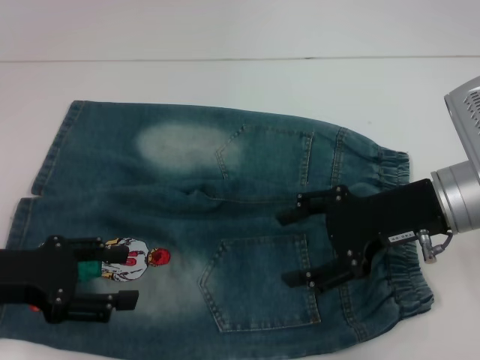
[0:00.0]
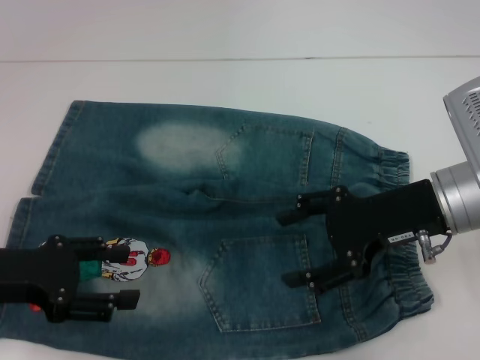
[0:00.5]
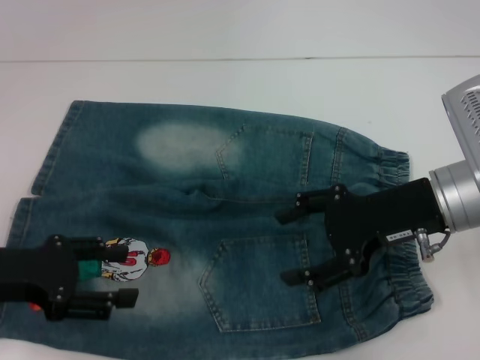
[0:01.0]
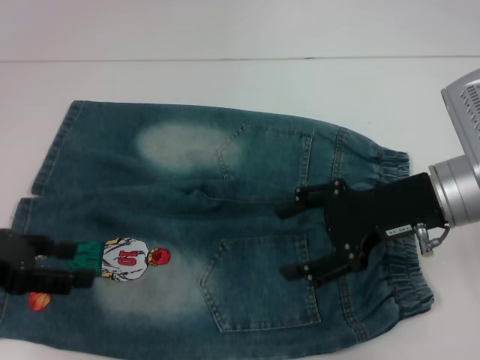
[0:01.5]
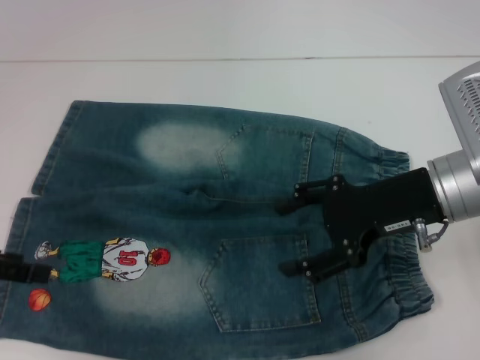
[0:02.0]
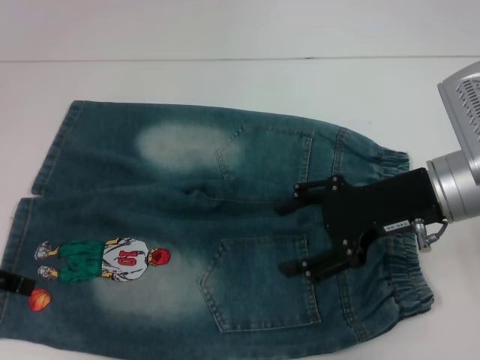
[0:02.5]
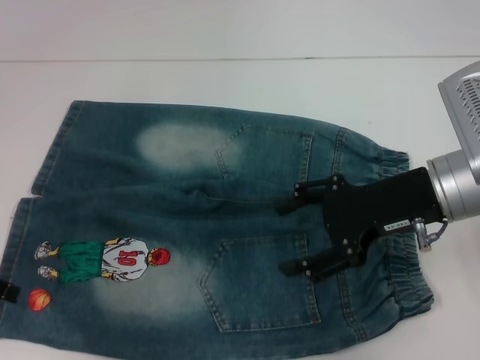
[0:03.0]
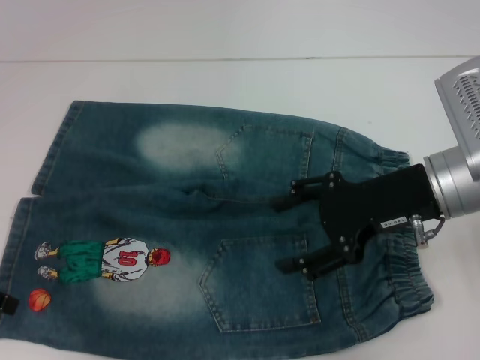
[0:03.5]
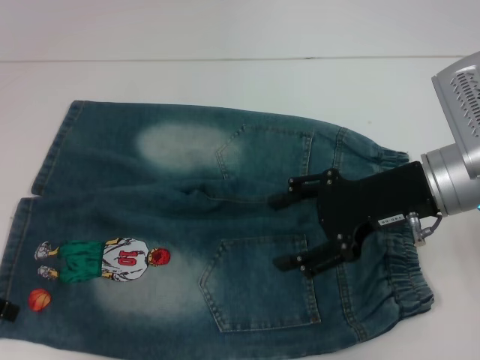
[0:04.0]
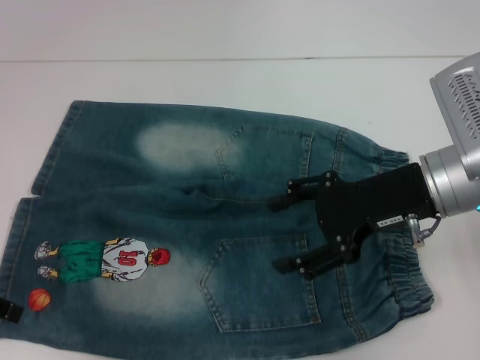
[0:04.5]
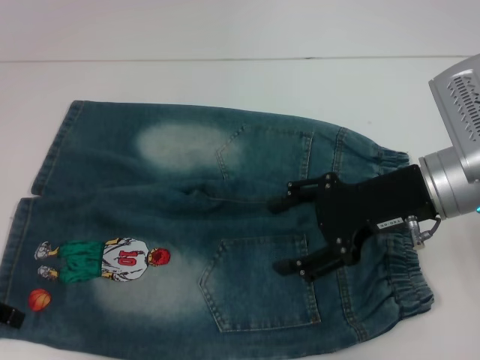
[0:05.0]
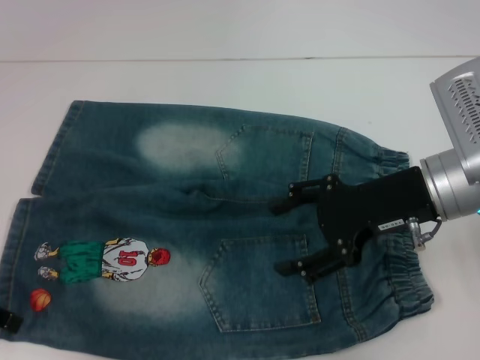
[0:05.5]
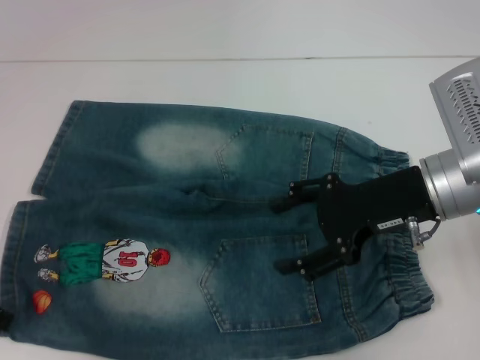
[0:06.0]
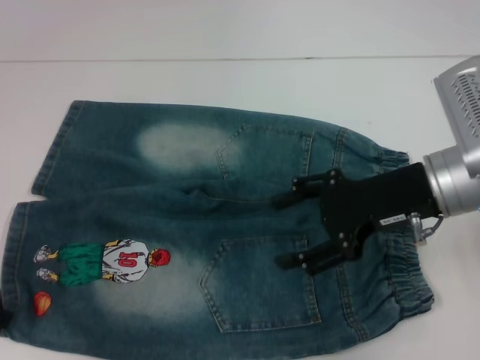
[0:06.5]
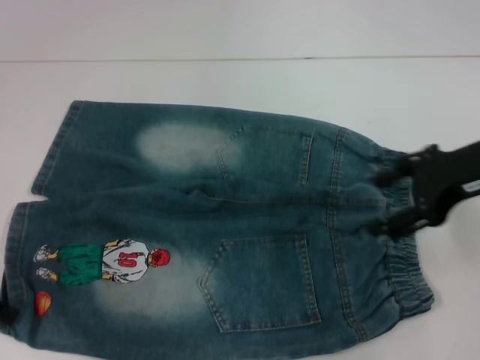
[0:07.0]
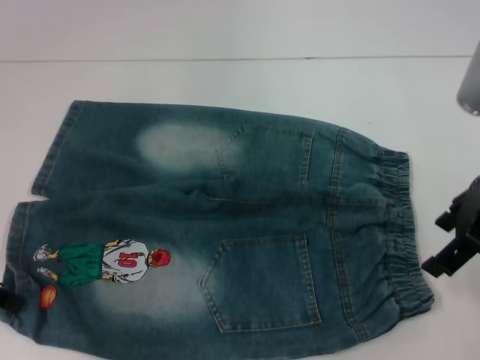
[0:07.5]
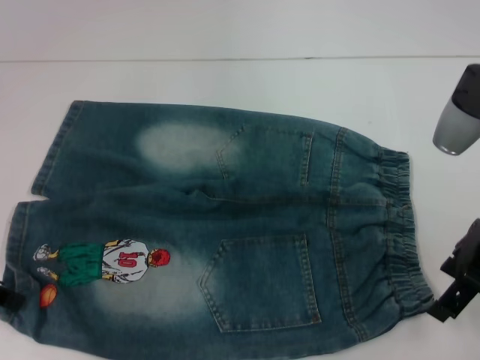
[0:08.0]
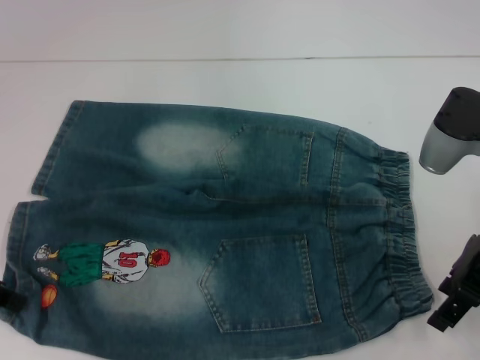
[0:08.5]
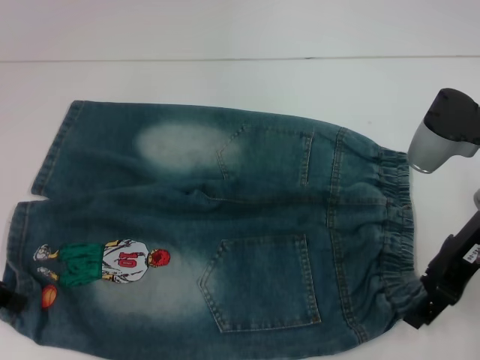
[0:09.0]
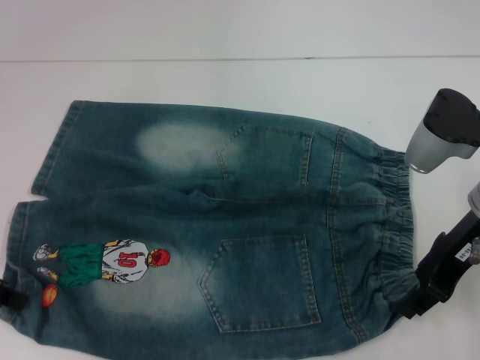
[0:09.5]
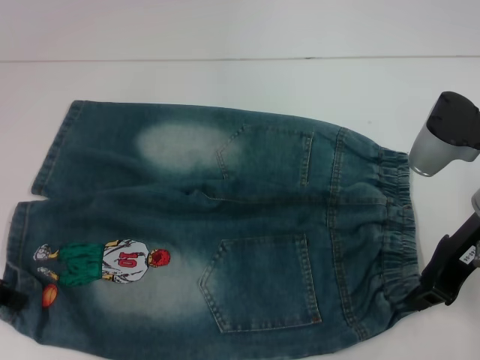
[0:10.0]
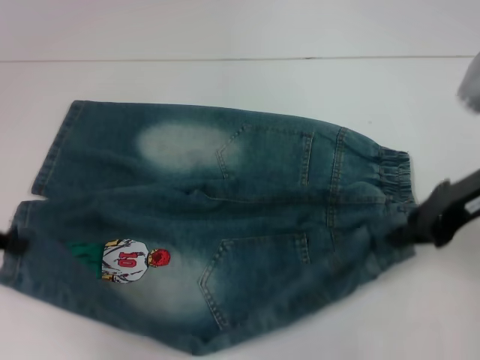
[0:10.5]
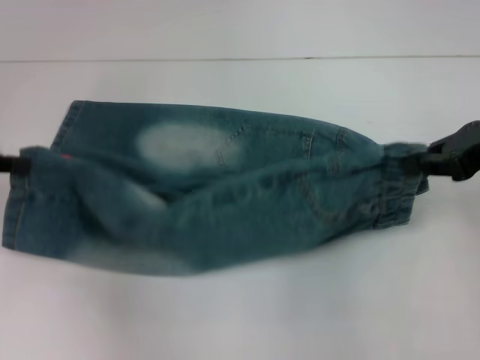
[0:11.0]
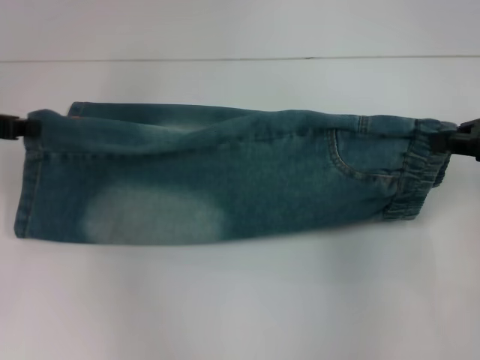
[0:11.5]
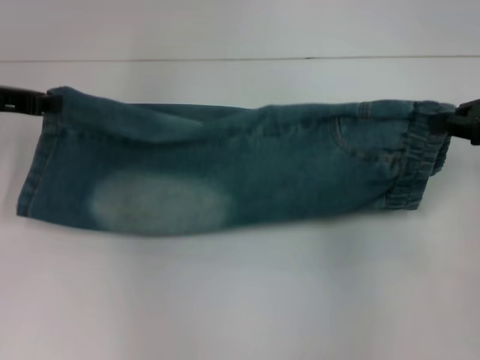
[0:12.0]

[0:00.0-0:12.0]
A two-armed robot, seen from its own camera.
Step, 0:00.0 to 0:06.5: Grab the lower left pant leg with your left hand.
Step, 0:07.0 to 0:09.5: Hold the lower right waistband with your right hand.
0:00.0 to 0:02.0: The left gripper shifts by about 5 cm.
0:02.0 to 0:04.0: There are only small adjustments of the grippers.
0:04.0 to 0:06.0: The left gripper closes its fingers.
0:06.0 to 0:08.0: The right gripper shifts by some 5 cm.
0:08.0 to 0:10.0: The right gripper closes its fingers.
0:10.0 to 0:12.0: The left gripper shifts some 10 cm forward. Meanwhile the right gripper heads to the right, covering roughly 10 cm.

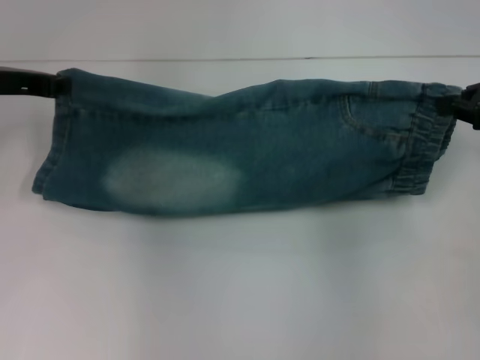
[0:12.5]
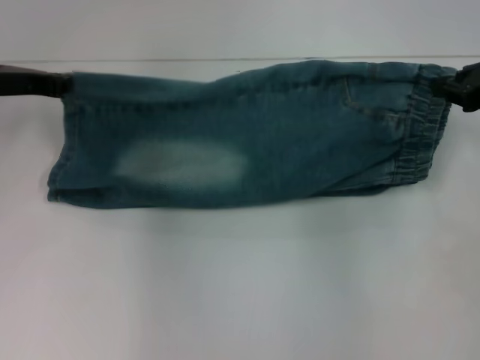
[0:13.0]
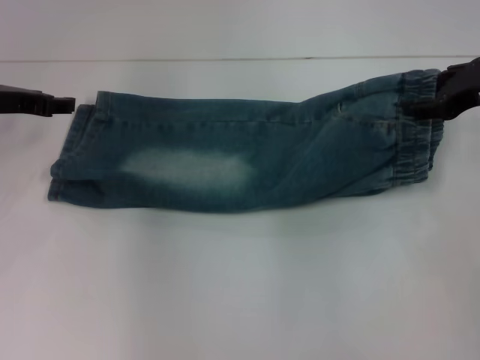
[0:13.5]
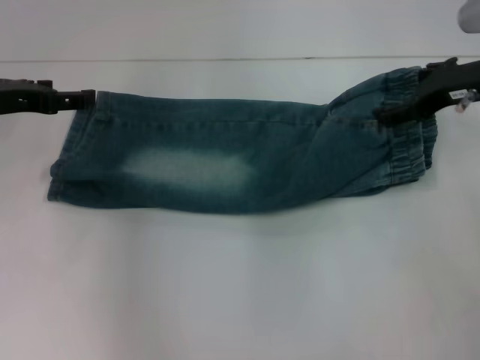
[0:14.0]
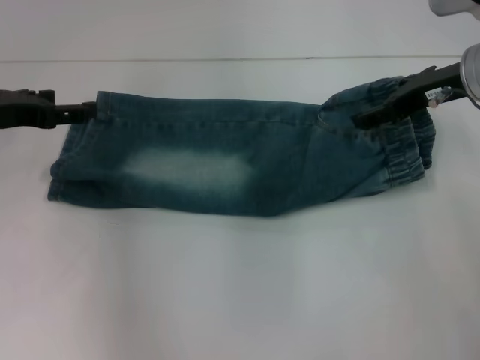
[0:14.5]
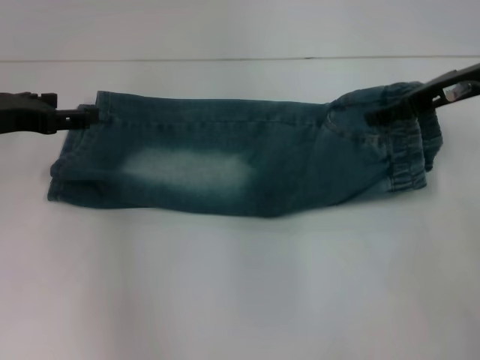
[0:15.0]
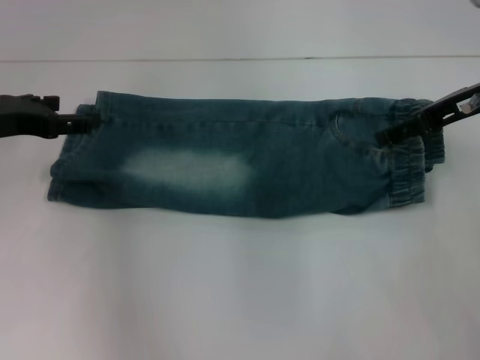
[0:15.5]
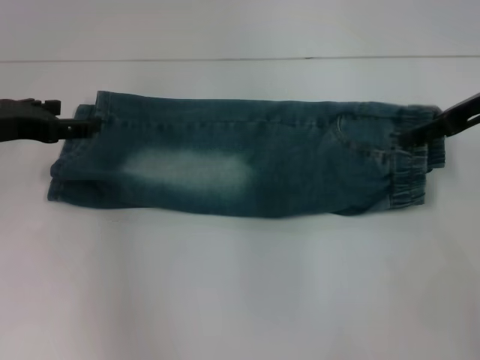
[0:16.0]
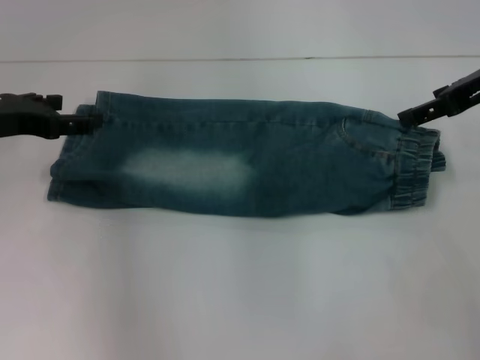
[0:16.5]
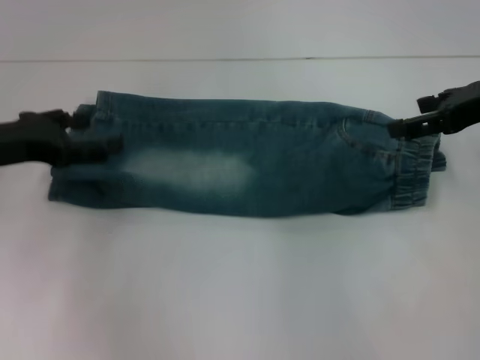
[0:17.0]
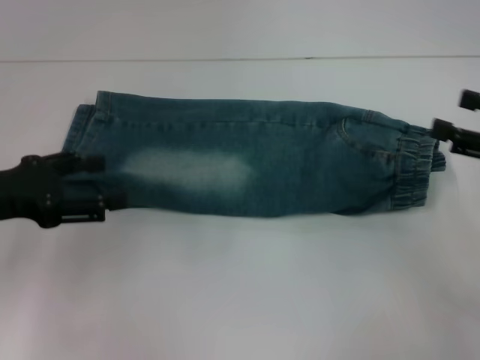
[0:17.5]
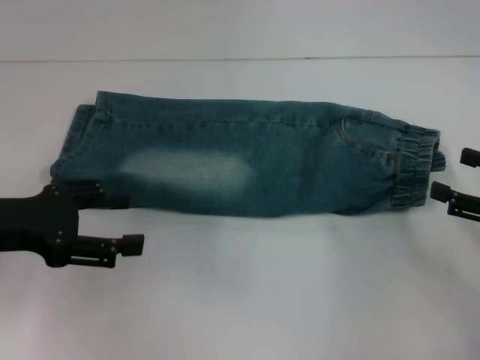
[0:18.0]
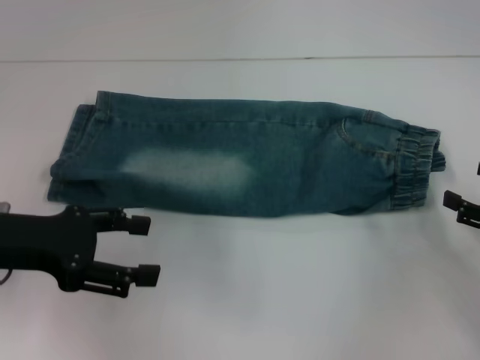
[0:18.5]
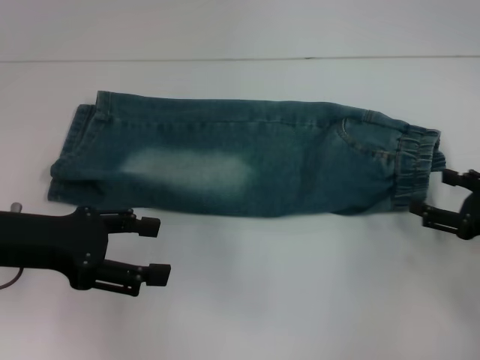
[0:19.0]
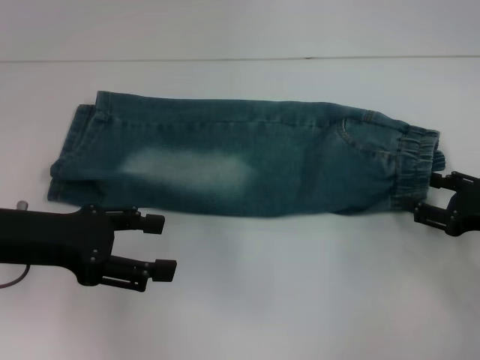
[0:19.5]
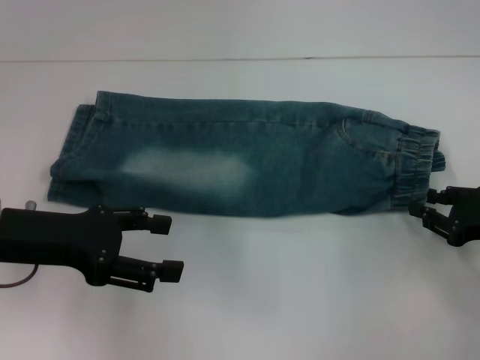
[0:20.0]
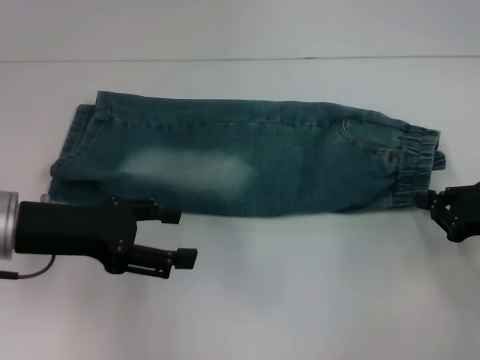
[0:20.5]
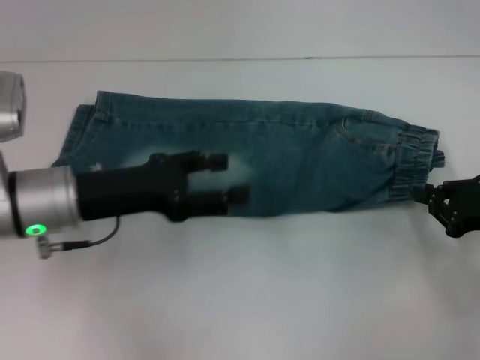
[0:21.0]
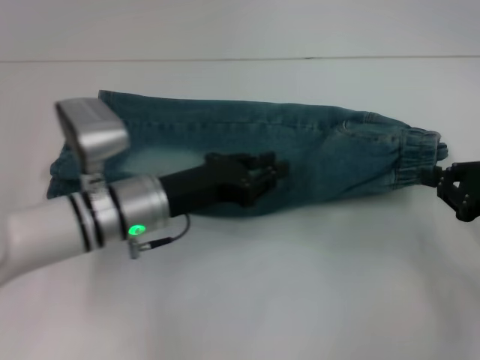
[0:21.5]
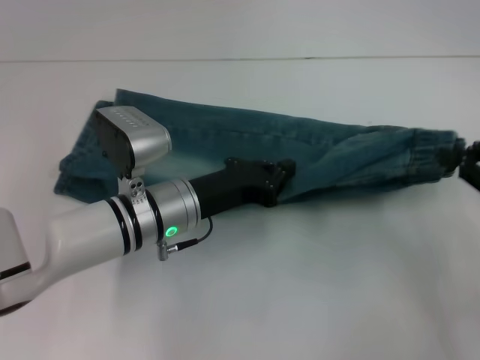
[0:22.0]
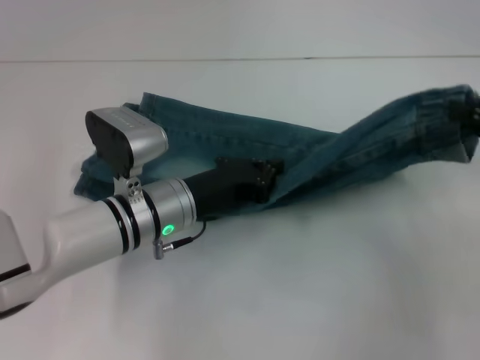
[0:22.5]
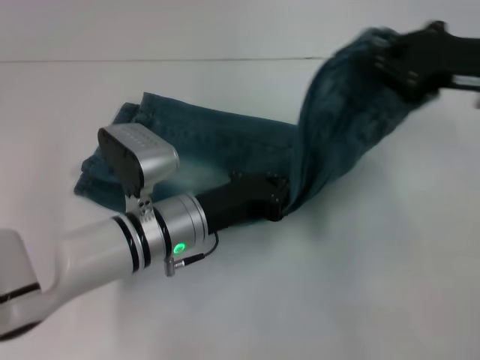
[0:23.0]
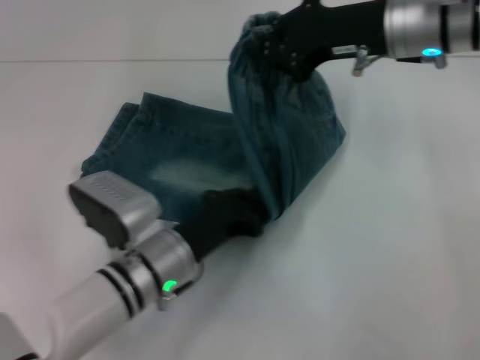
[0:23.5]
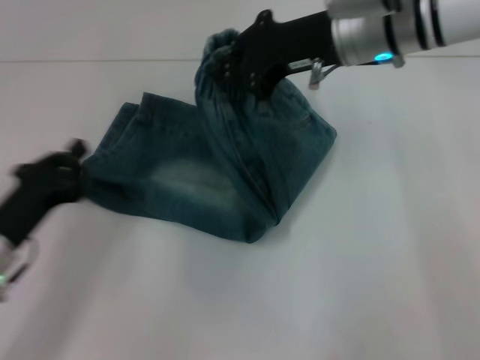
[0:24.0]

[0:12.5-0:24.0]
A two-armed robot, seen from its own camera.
Step, 0:13.5 to 0:16.0: Fold upward with your right hand.
Step, 0:16.5 to 0:20.5: Grab the waistband with your right hand.
Step, 0:21.0 to 0:23.0: Press the middle of the pants with your left hand.
0:12.5 to 0:14.5: The right gripper travels to the left by some 10 cm, and opens its fingers. Meanwhile the left gripper opens its fingers.
0:14.5 to 0:16.5: The right gripper shifts by roughly 5 cm.
0:16.5 to 0:18.5: The right gripper shifts roughly 25 cm downward, backward and to the right. Meanwhile the left gripper shifts roughly 10 cm backward.
0:18.5 to 0:20.0: The right gripper closes up.
0:20.0 to 0:22.0: The right gripper heads upward, covering some 10 cm, and closes, while the left gripper shifts roughly 20 cm to the right and downward, and closes.
0:22.0 to 0:24.0: The left gripper travels to the left and backward by some 15 cm, while the right gripper heads to the left and forward, covering roughly 25 cm.

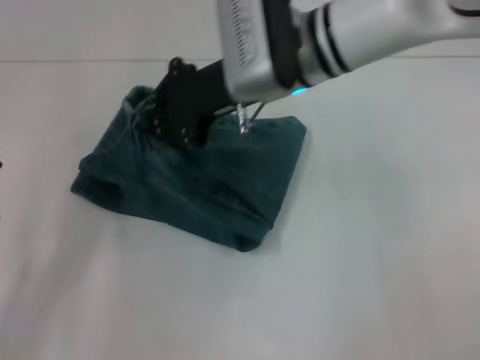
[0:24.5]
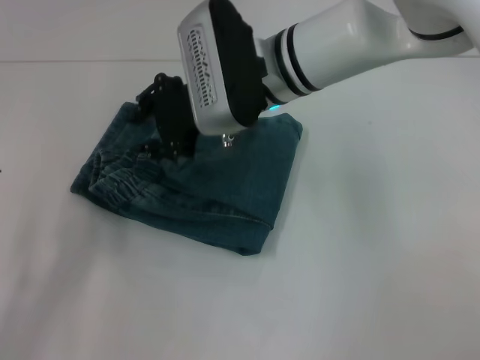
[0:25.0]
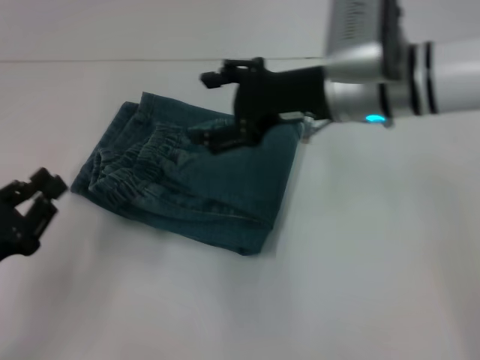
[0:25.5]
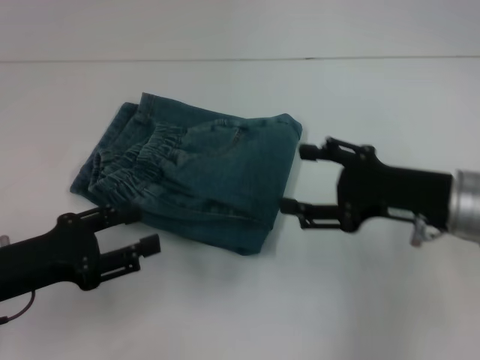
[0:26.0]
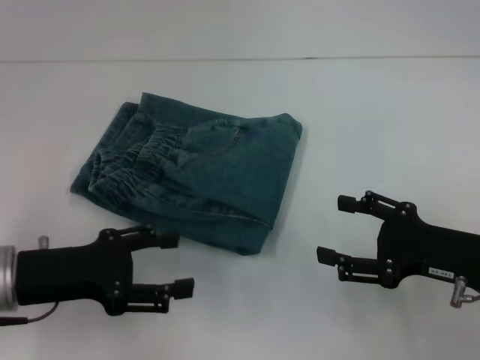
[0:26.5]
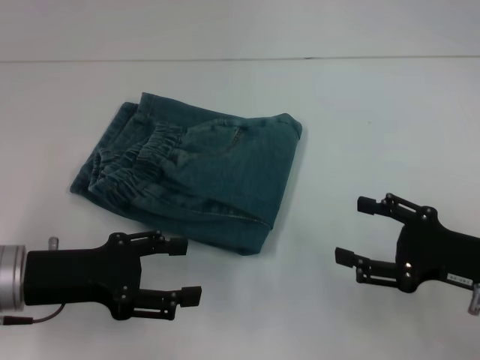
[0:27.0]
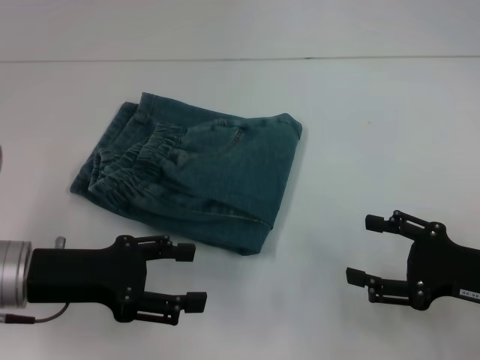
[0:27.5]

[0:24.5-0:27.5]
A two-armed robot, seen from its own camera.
0:24.5 to 0:26.0: The right gripper moves to the right, backward and downward, about 25 cm, and opens its fingers; the left gripper changes place by roughly 5 cm, and opens.
0:26.0 to 0:27.5: The left gripper opens up. Meanwhile the right gripper heads backward and to the right, covering roughly 10 cm.
